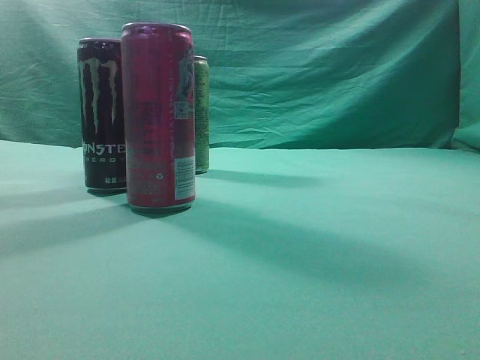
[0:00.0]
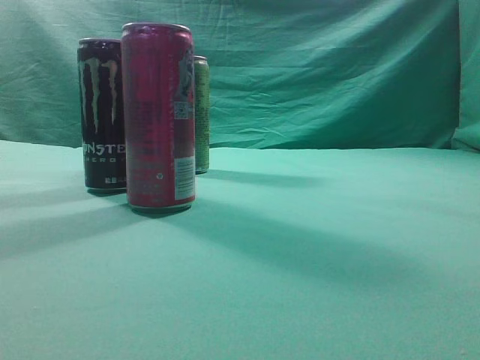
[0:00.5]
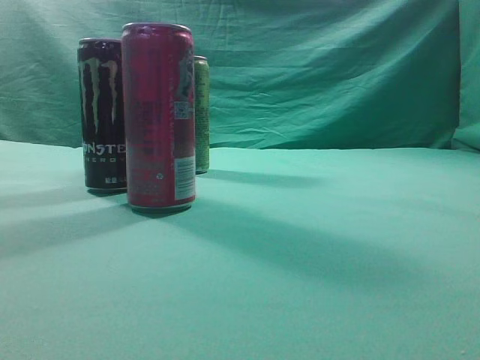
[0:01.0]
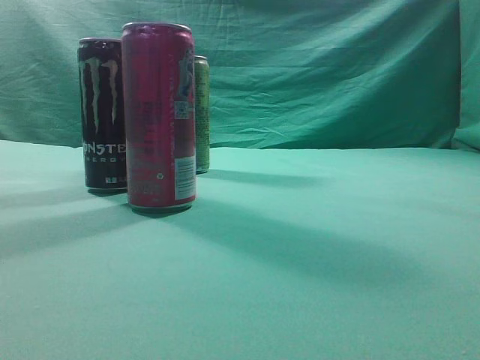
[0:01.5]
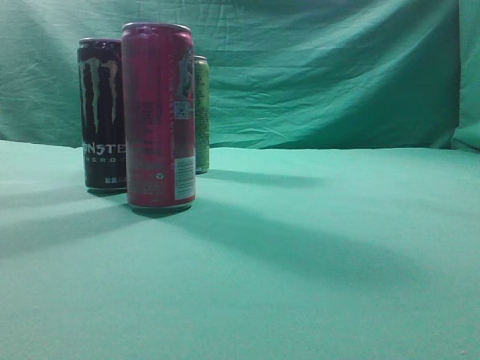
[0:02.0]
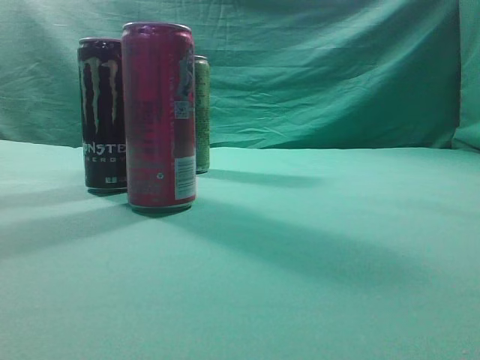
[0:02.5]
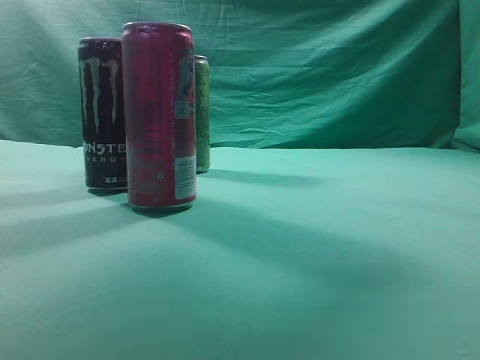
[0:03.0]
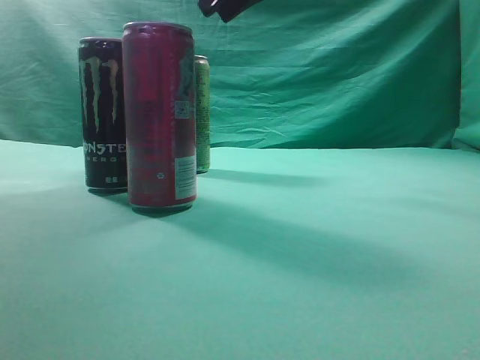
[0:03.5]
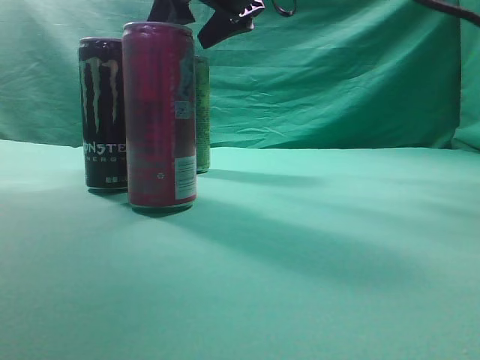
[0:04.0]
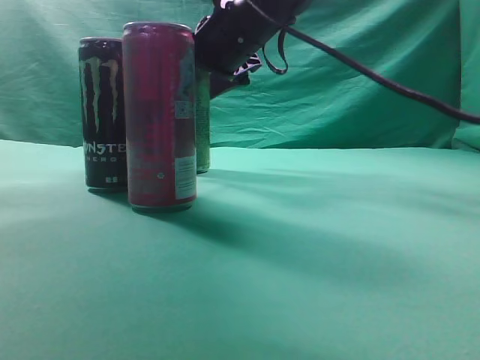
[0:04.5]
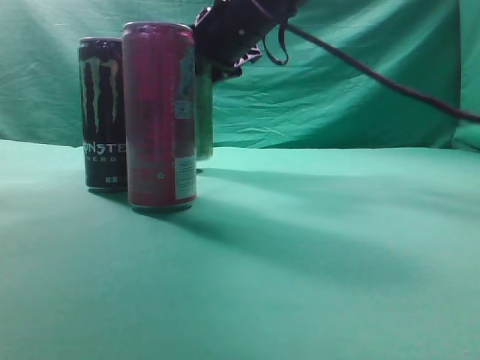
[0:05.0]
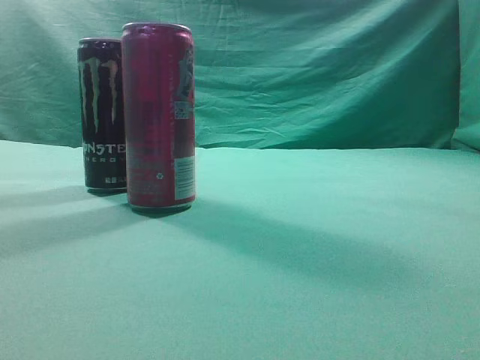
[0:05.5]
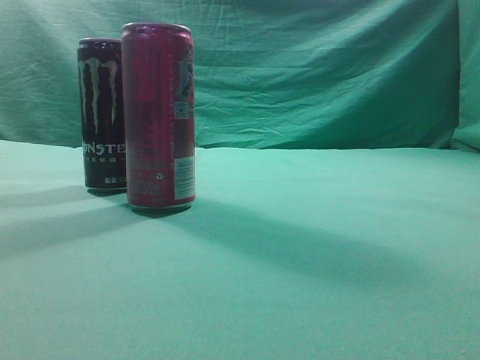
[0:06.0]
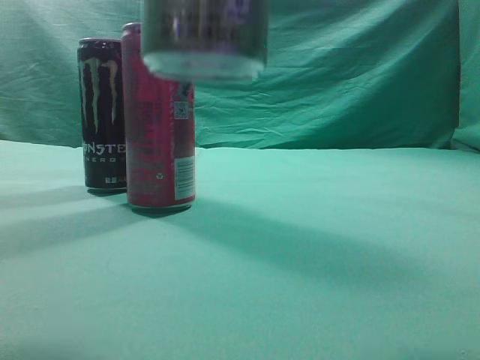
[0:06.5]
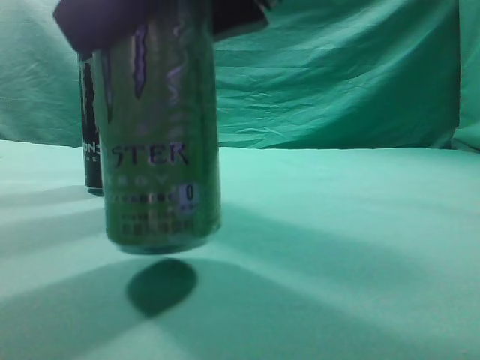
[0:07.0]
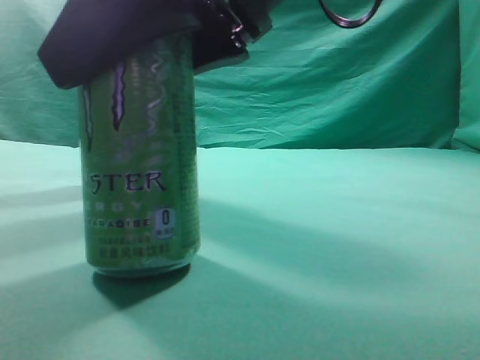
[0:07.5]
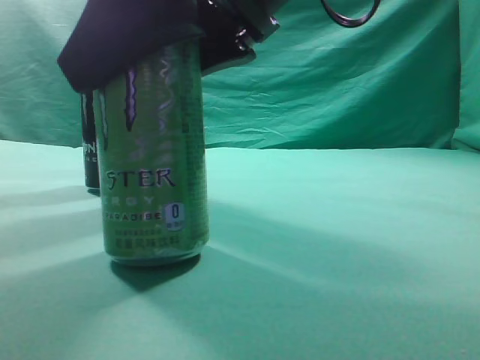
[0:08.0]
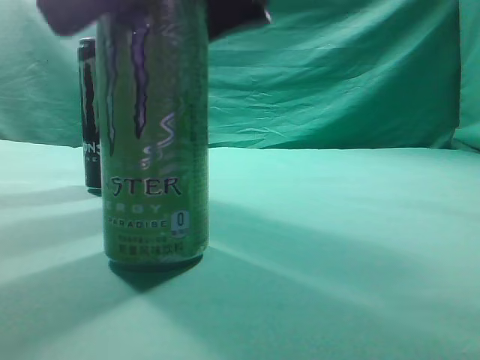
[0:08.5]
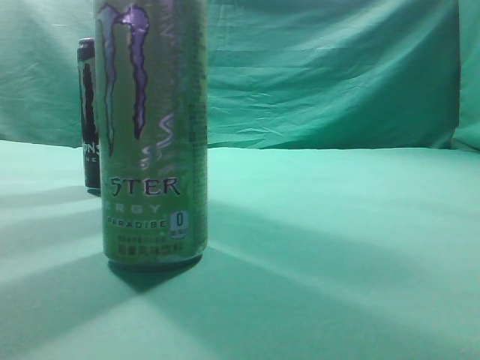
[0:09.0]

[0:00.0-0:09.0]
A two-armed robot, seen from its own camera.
Task of the whole recording: move one drink among three beverages.
Step, 0:00.0 to 0:05.0: Grasp the beverage bottle placed at the back of the desk.
Step, 0:05.5 to 0:08.5: Place the beverage bottle to the front of the table.
0:02.0 to 0:04.5: The right gripper heads forward and to the left, covering roughly 50 cm, and opens its fingers.
0:04.5 to 0:07.0: The right gripper is displaced backward by some 25 cm.
0:07.0 to 0:09.0: The right gripper shifts some 20 cm upward and to the right, and closes.
